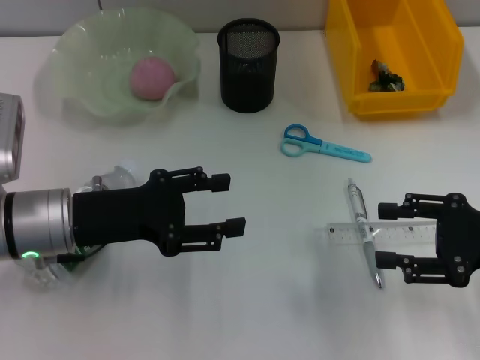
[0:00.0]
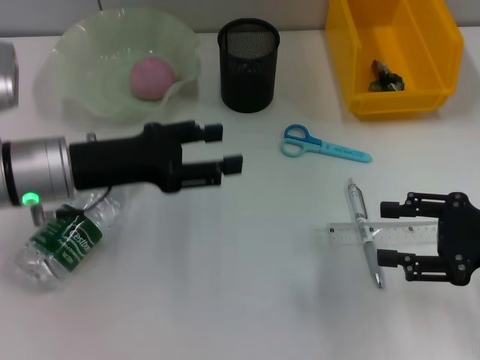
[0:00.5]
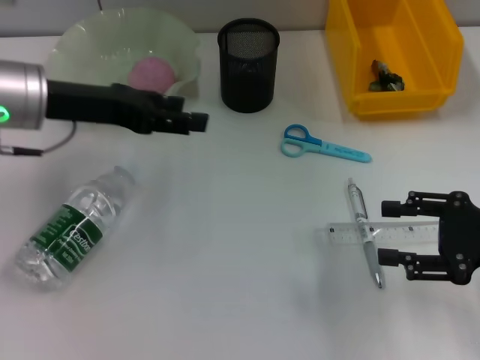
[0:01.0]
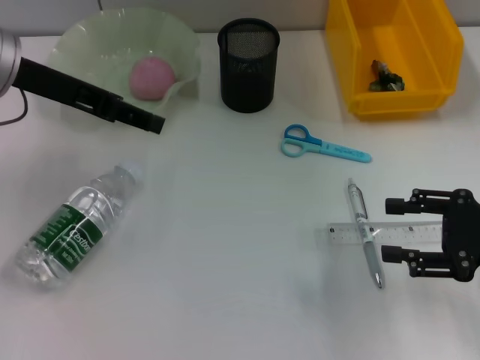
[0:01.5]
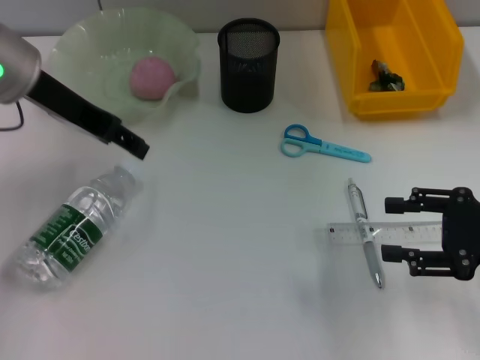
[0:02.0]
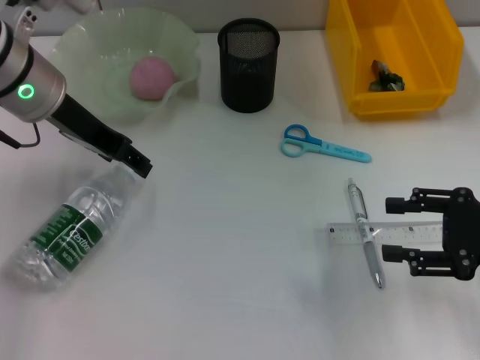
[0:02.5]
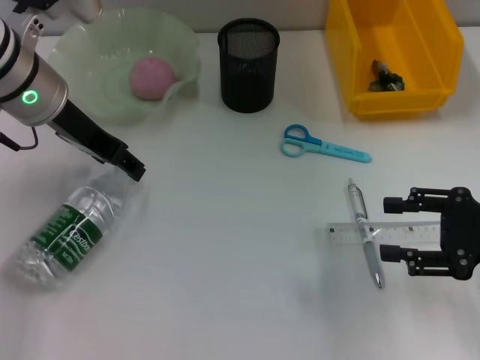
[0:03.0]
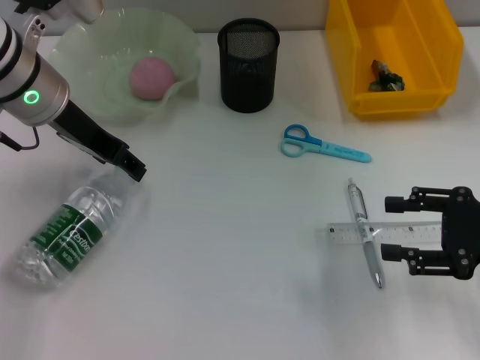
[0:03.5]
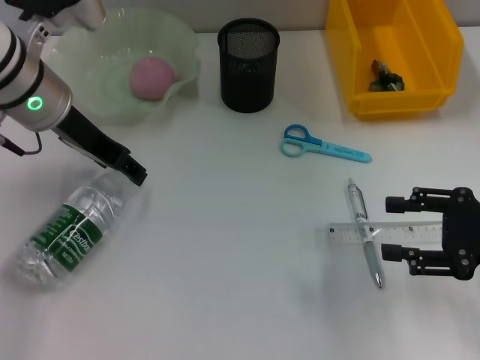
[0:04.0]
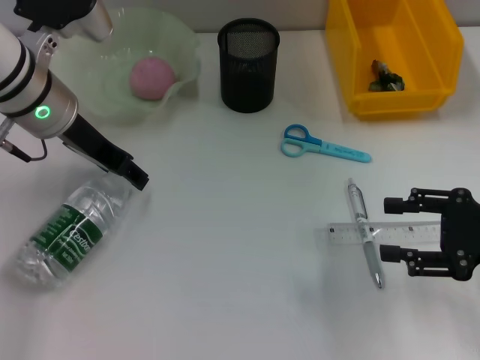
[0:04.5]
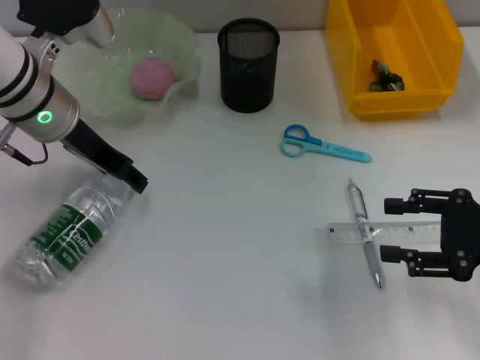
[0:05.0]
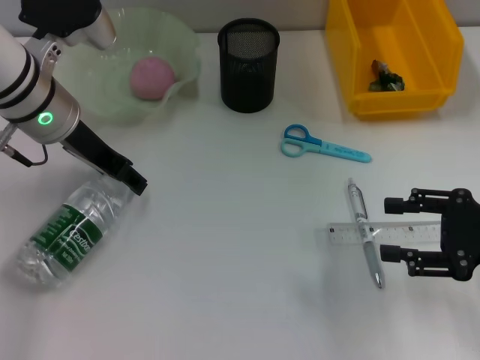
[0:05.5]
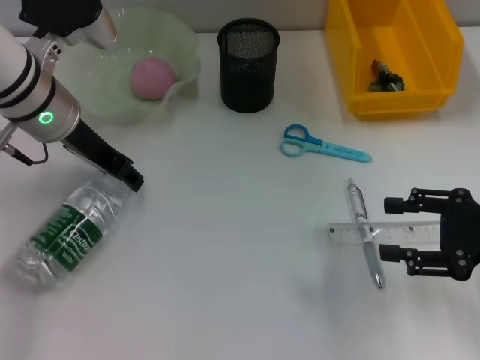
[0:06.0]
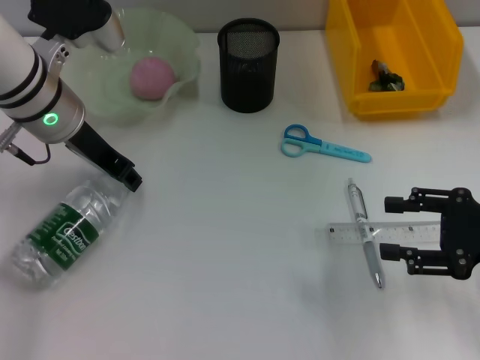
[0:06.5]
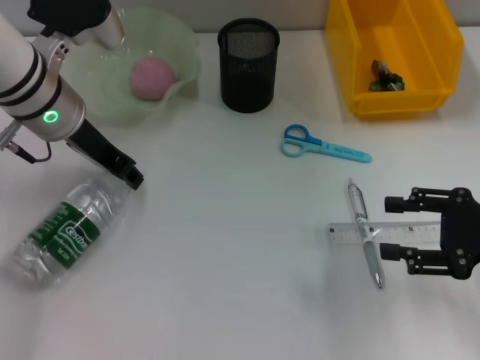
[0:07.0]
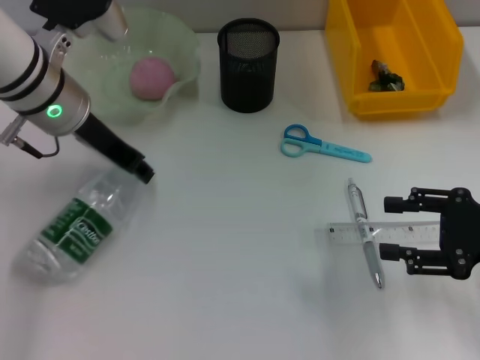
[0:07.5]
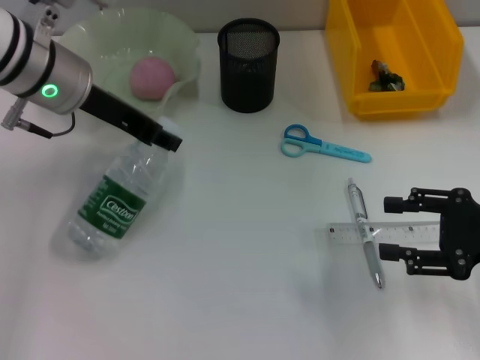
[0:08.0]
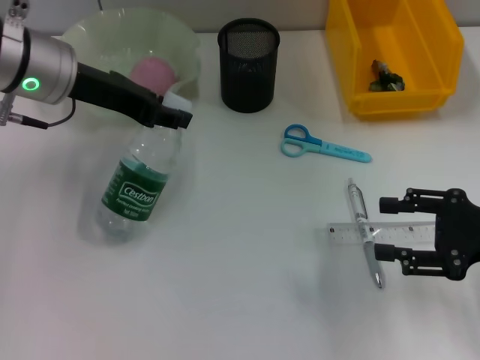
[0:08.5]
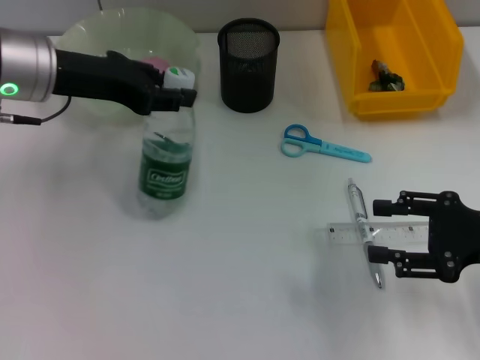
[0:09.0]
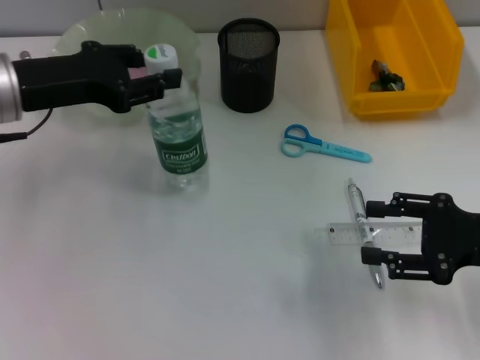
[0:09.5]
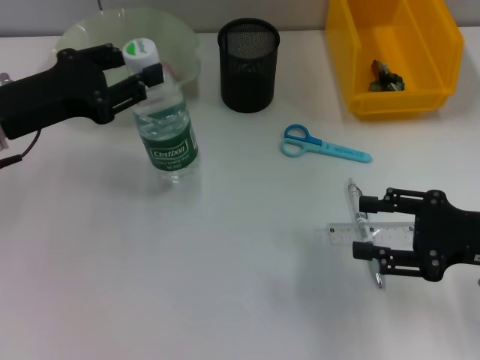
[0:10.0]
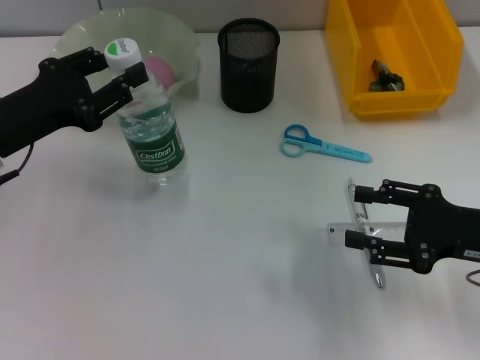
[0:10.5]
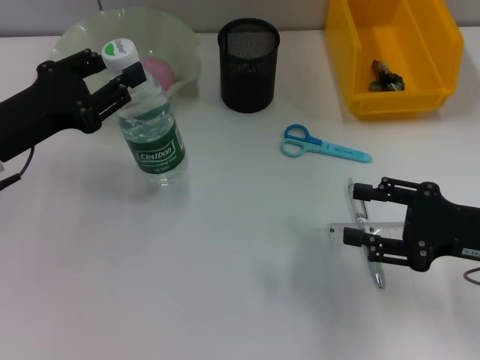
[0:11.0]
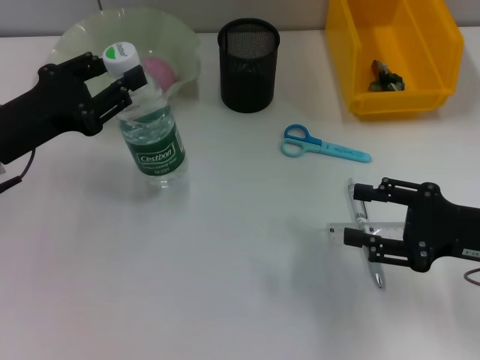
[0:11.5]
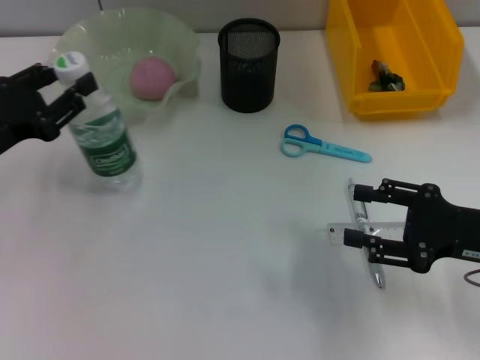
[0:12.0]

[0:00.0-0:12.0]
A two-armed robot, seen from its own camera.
Step, 0:00.0 to 0:06.5: Grab the water bottle with the left hand.
0:00.0 to 0:02.0: The left gripper travels upward and forward by some 15 cm.
0:02.0 to 0:04.0: The left gripper ends up some 5 cm from where it was.
0:04.0 to 0:08.0: The grippers make only small movements.
0:08.0 to 0:10.0: The left gripper moves to the left and backward, approximately 10 cm.
0:10.0 to 0:12.0: The left gripper changes place by about 5 cm.

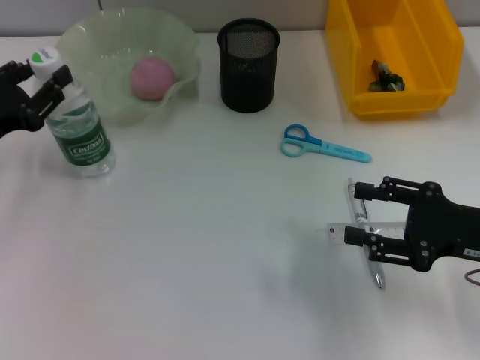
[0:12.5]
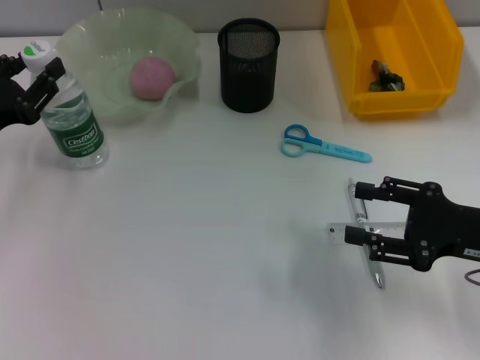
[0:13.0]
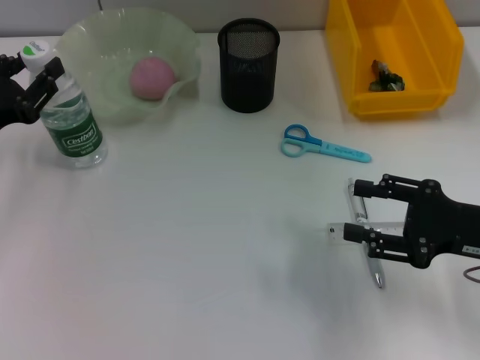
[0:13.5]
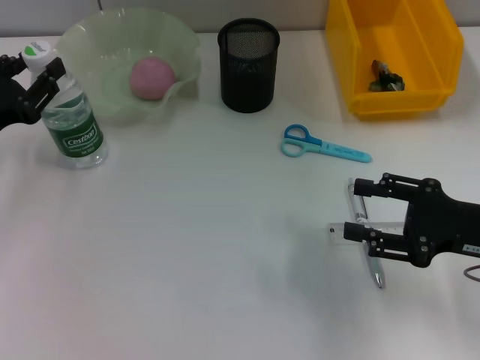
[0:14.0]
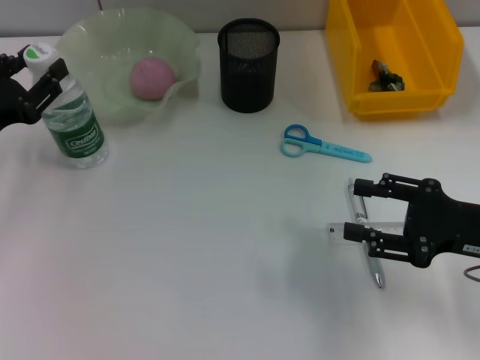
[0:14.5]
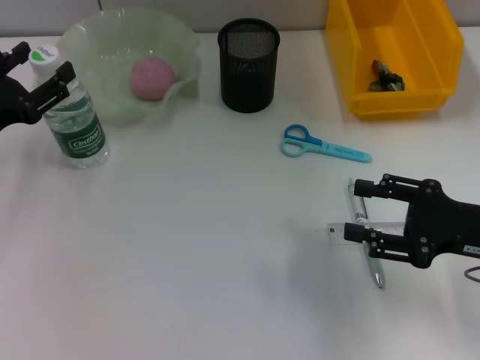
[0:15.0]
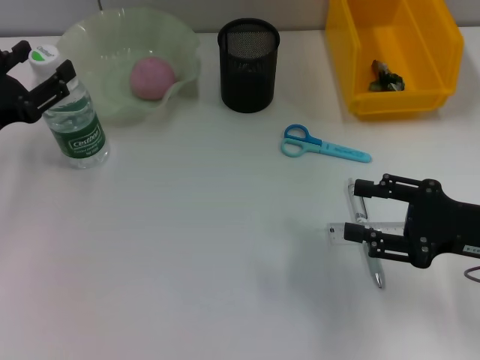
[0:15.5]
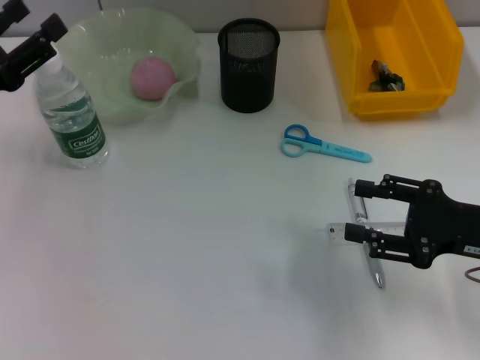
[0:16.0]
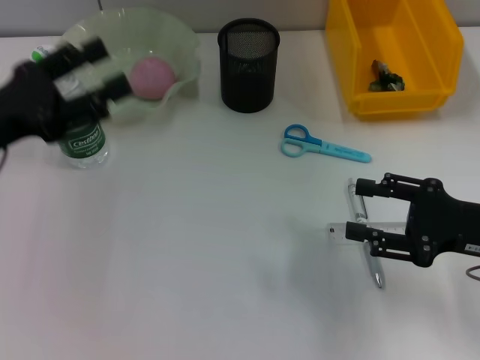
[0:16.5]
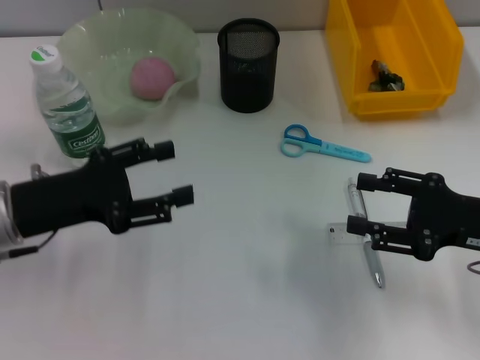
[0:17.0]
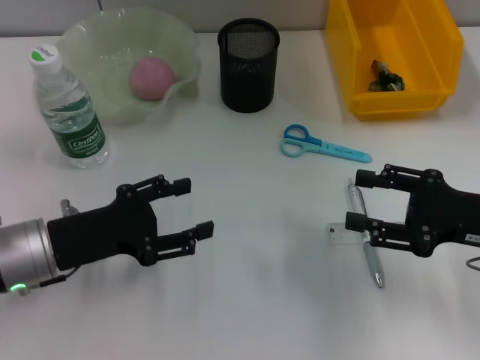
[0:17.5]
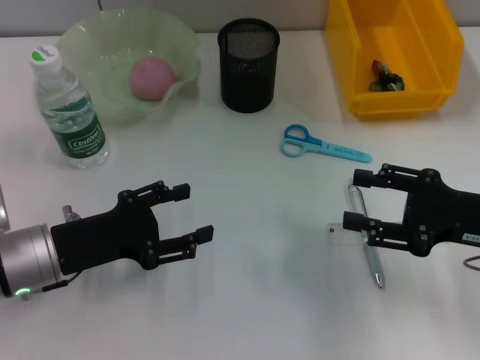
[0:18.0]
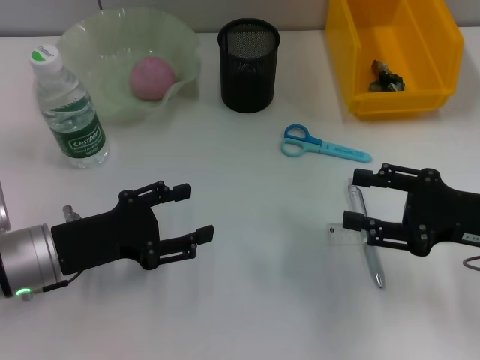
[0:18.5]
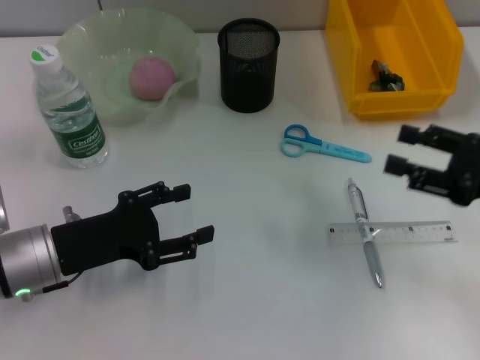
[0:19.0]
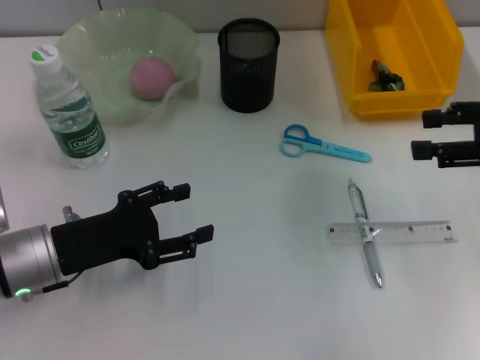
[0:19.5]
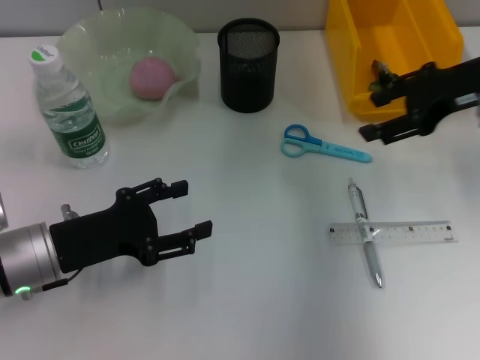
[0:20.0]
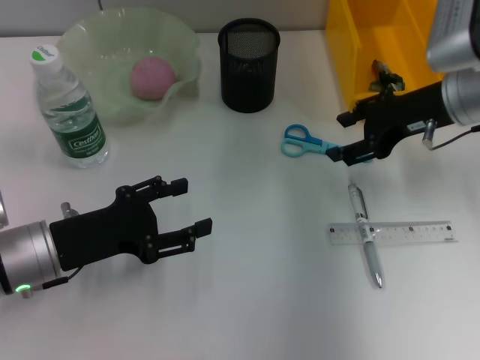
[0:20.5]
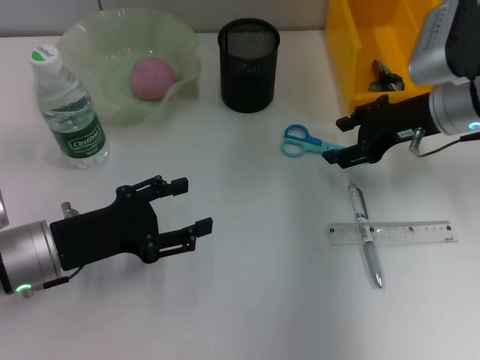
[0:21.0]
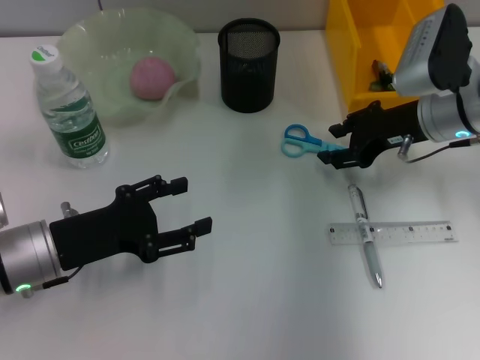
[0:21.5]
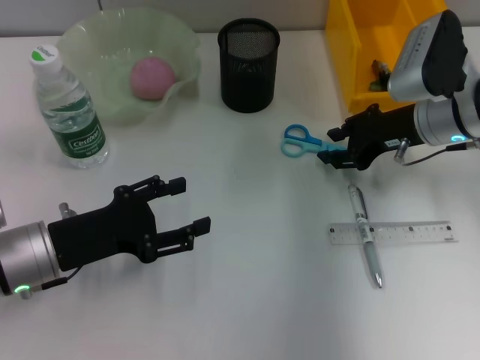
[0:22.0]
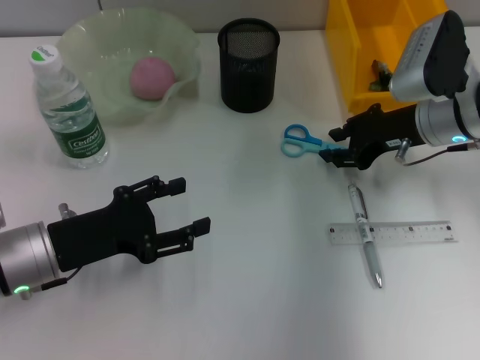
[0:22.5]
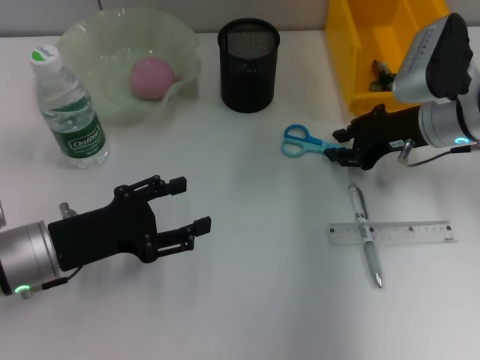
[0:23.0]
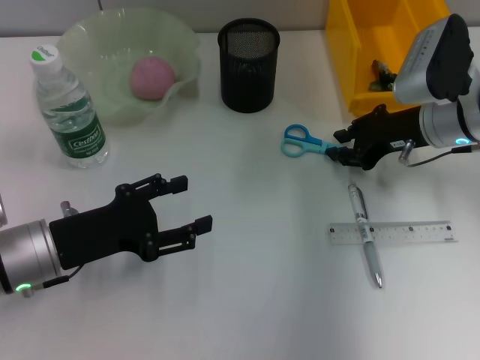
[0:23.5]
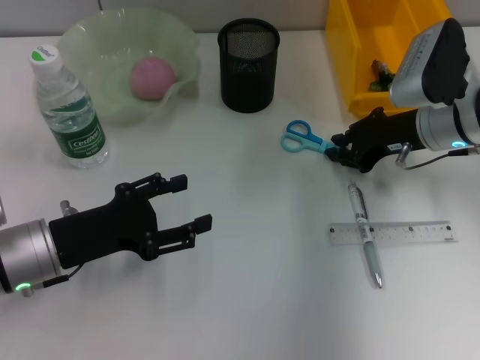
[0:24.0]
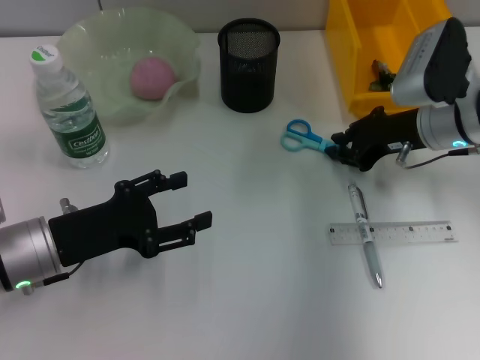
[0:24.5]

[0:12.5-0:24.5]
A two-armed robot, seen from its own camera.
Step, 0:12.5 to 0:14.5: Place the water bottle on the table with the left hand.
Step, 0:15.5 to 0:24.0: Grab the blue scissors with the right hand.
0:12.5 to 0:14.5: Neither gripper changes place.
0:14.5 to 0:16.5: The left gripper shifts by about 5 cm, and opens up.
0:16.5 to 0:18.5: The left gripper goes about 10 cm downward and to the right.
0:18.5 to 0:20.5: The right gripper shifts some 15 cm forward and upward.
0:20.5 to 0:22.5: The grippers stay close to where they were, moving slightly.
0:22.5 to 0:24.5: The two grippers keep their place.

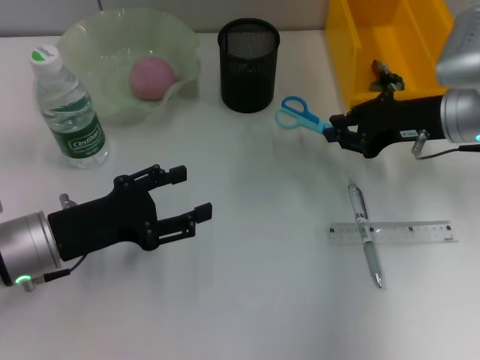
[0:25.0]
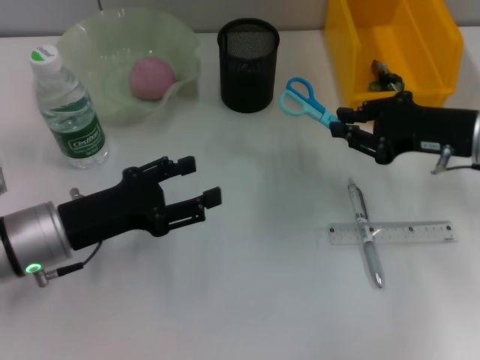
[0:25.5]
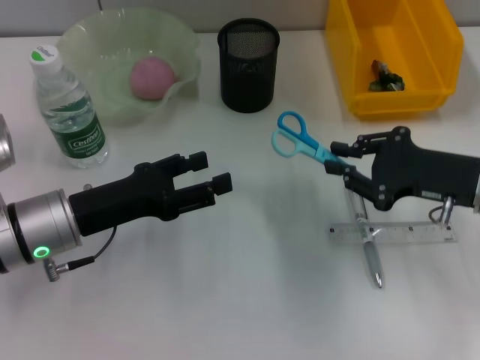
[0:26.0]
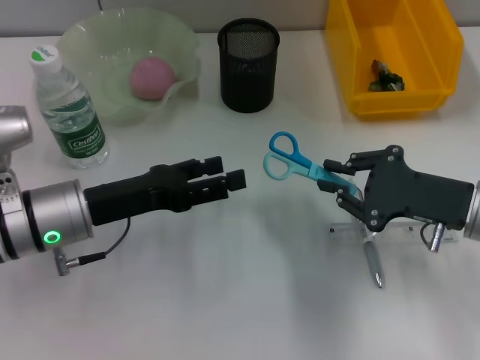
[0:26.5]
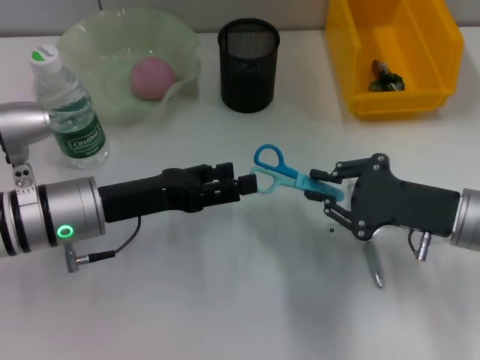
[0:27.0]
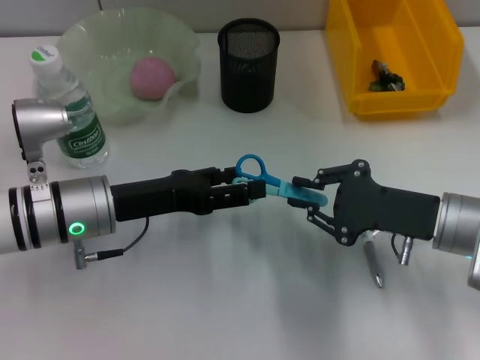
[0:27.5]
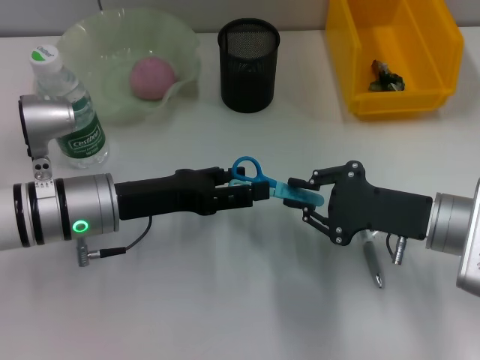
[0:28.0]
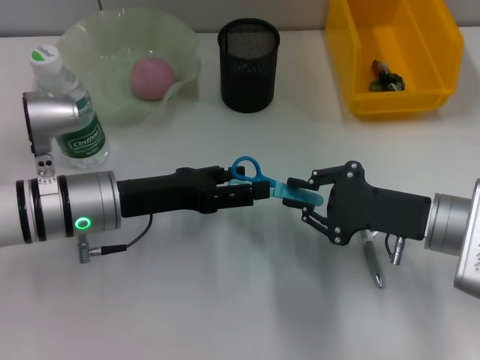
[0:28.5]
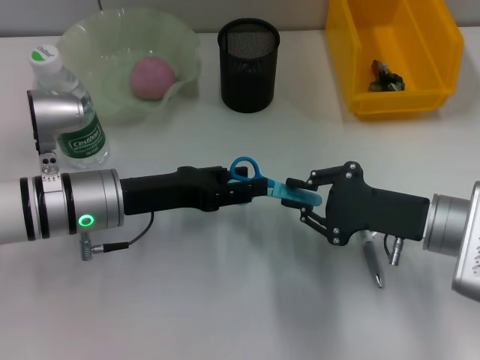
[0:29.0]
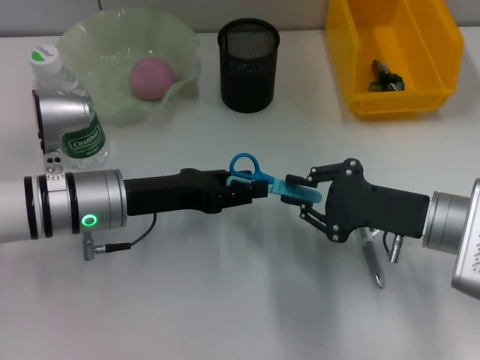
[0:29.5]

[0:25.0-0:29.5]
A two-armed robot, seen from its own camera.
0:25.0 to 0:27.0: The left gripper moves some 5 cm, while the right gripper moves backward and downward, about 10 cm.
0:27.0 to 0:29.5: The grippers stay close to where they were, moving slightly.
